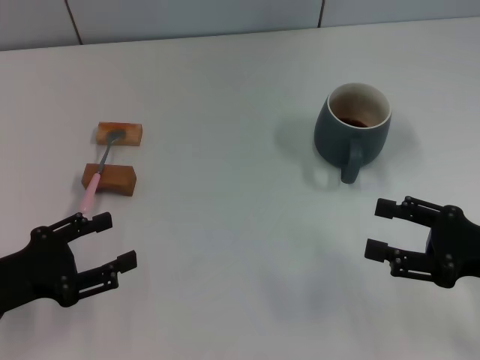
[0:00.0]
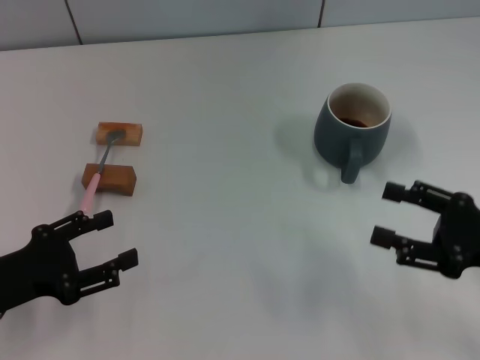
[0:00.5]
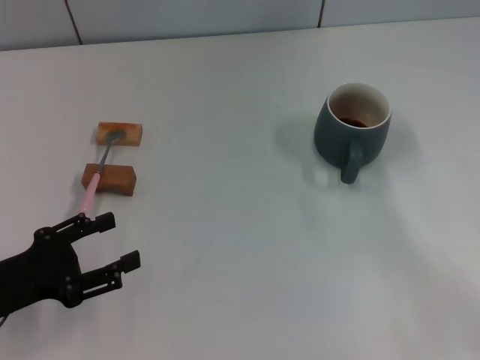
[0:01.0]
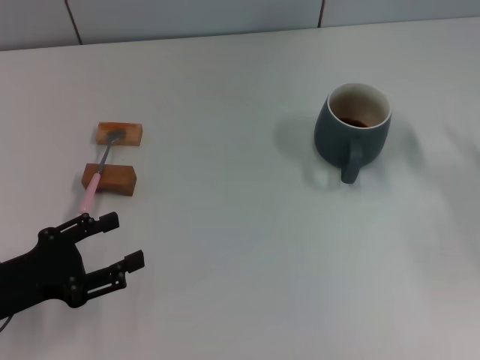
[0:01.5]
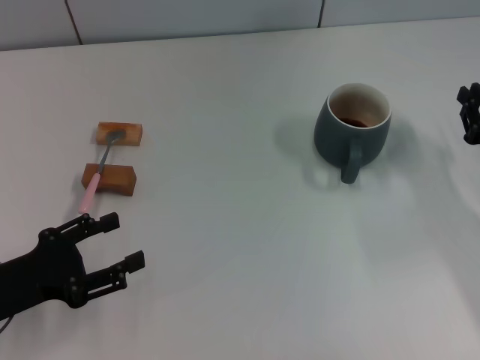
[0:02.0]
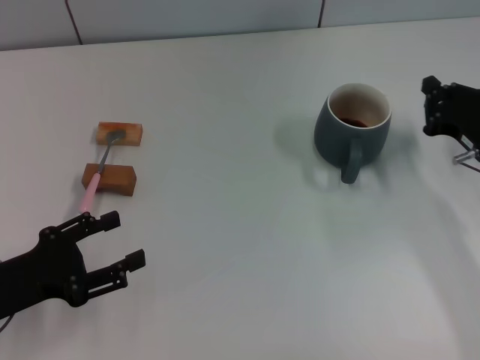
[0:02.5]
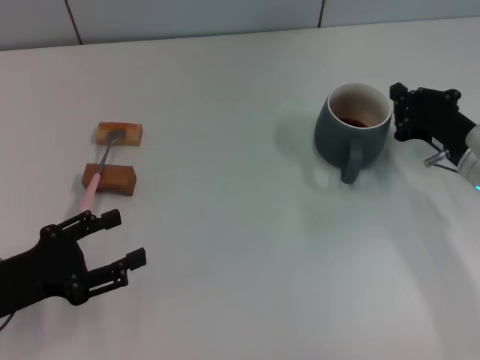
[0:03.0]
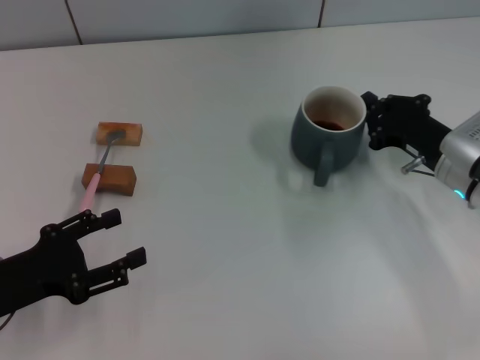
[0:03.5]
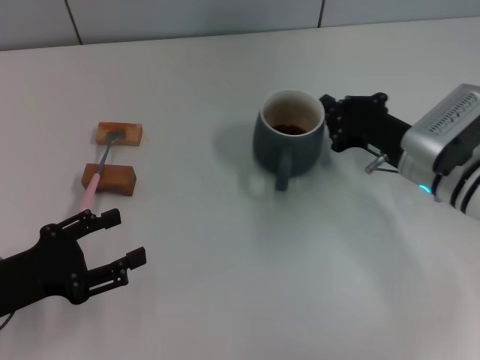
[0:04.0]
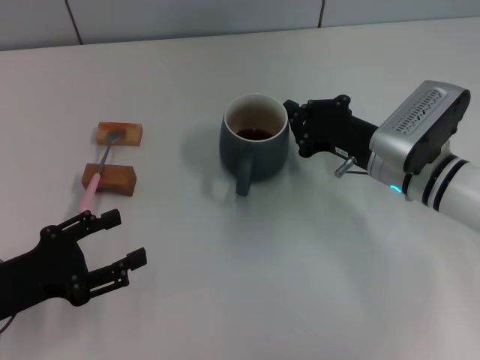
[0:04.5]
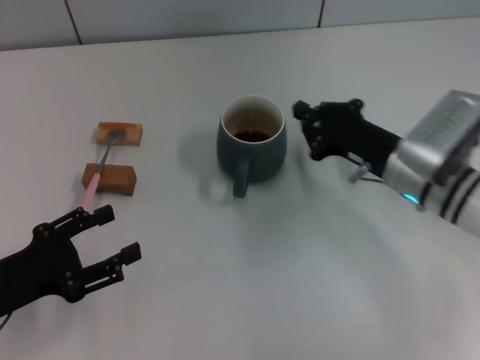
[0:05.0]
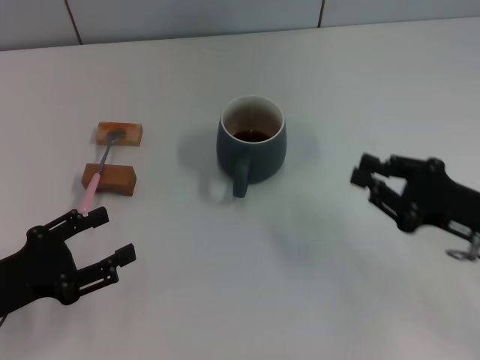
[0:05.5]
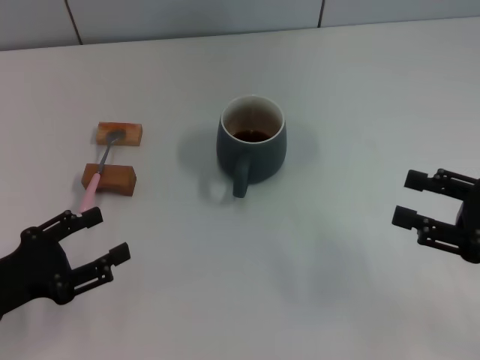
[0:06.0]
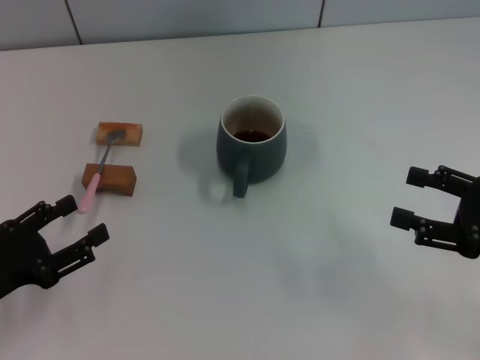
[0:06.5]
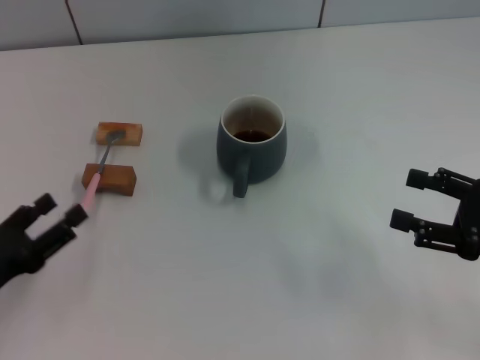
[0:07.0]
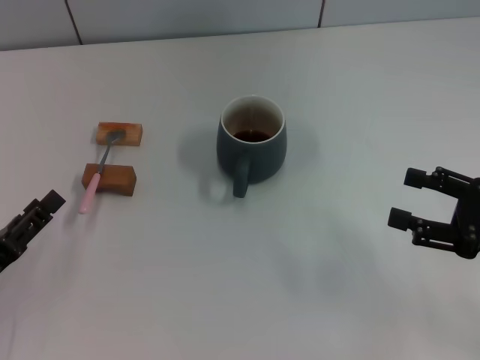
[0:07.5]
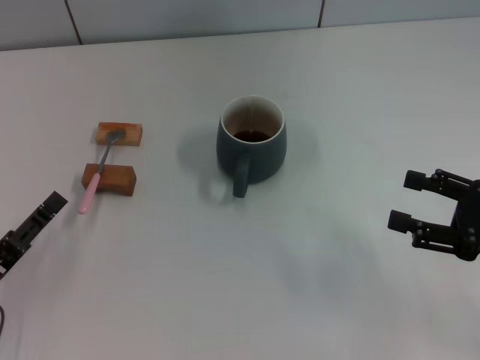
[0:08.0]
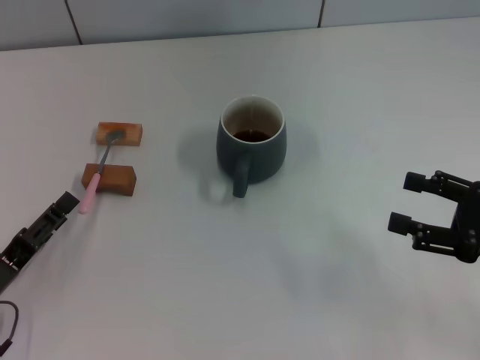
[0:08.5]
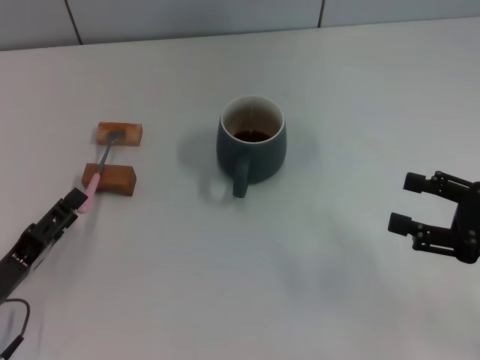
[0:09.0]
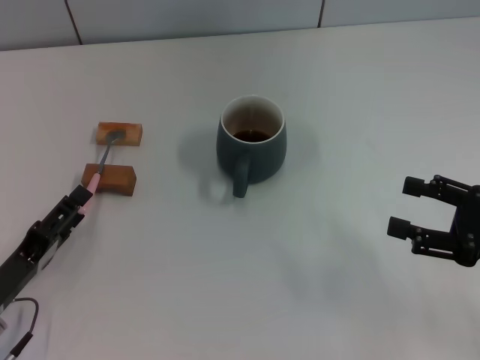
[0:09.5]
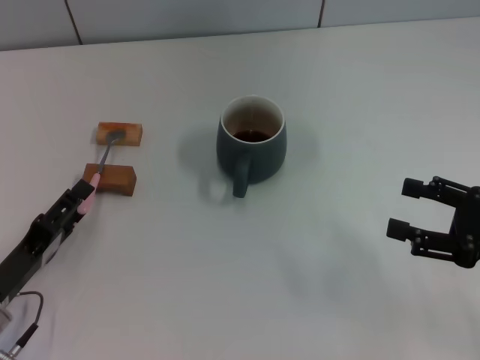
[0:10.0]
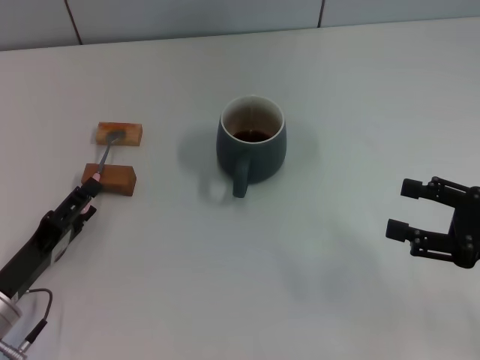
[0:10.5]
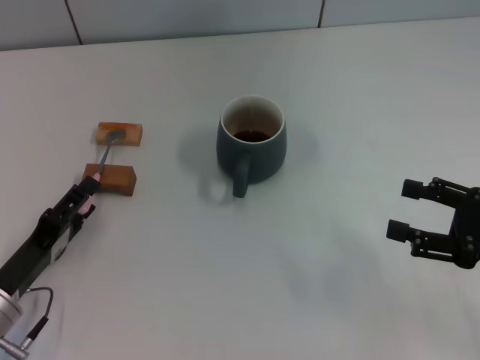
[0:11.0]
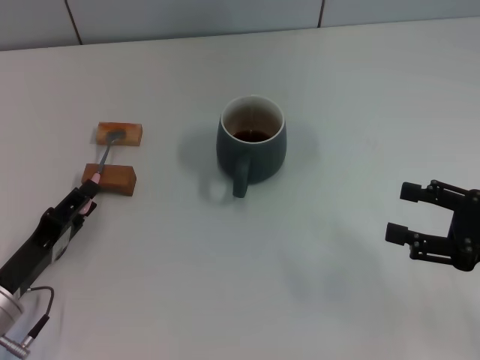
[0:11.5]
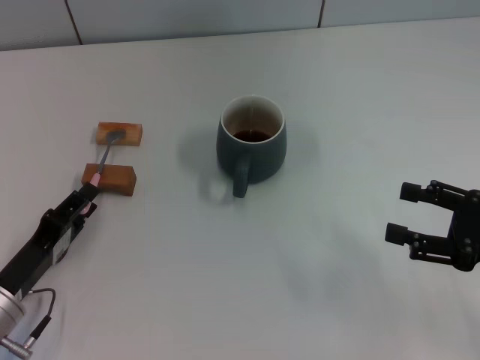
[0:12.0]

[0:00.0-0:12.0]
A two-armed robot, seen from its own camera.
Task of the whole recording: Move the grey cup to the center, lift the pink spoon, stir it three times in the cup, and put the spoon into the cup.
Step, 0:00.0 to 0:04.5: Move the cup with coffee to the center of view with the right gripper.
0:00.0 to 0:02.0: The right gripper travels forward by roughly 10 cm, and closes its fingers.
0:02.0 to 0:04.0: The right gripper goes approximately 10 cm to the left, and closes its fingers.
0:04.0 to 0:06.0: The right gripper heads backward, to the right and upward, covering some 15 cm, and opens up.
0:08.0 to 0:10.0: The grippers stay close to where they were, moving slightly.
0:10.0 to 0:12.0: The left gripper closes.

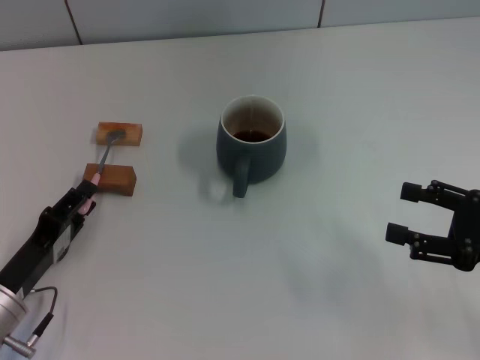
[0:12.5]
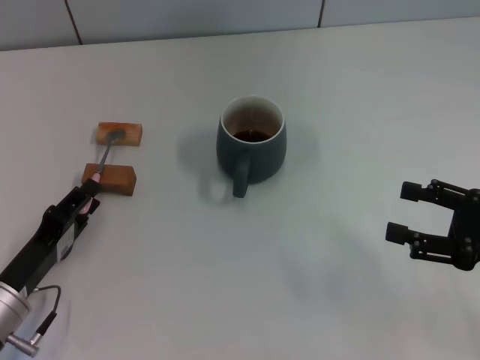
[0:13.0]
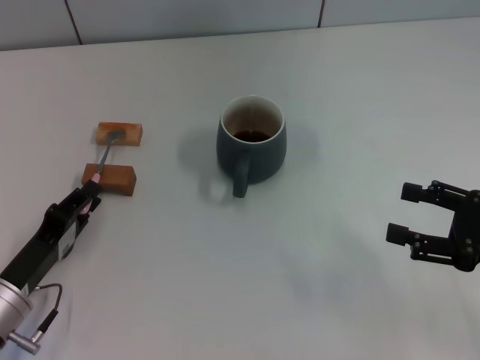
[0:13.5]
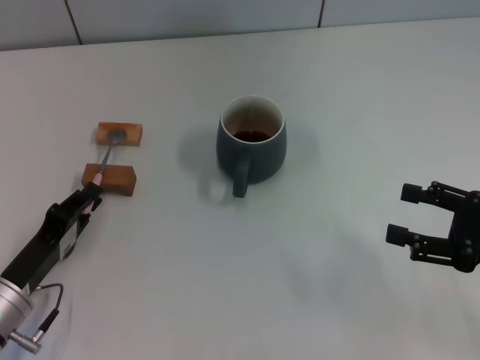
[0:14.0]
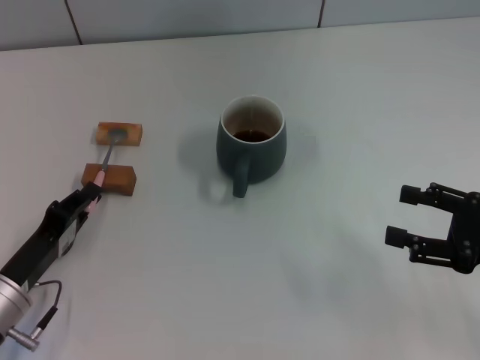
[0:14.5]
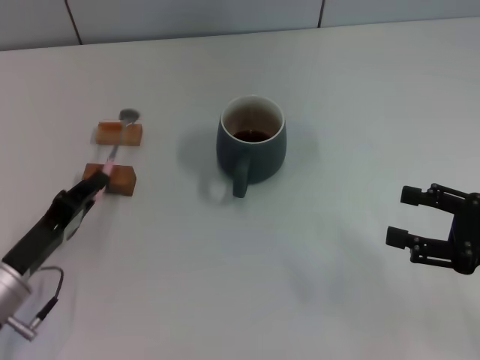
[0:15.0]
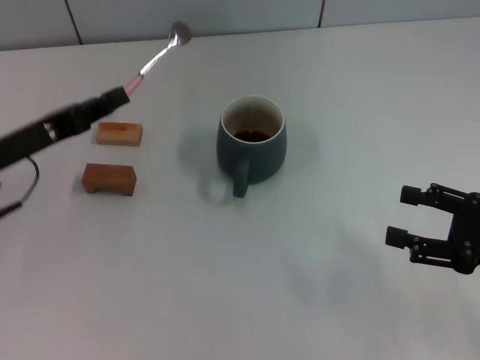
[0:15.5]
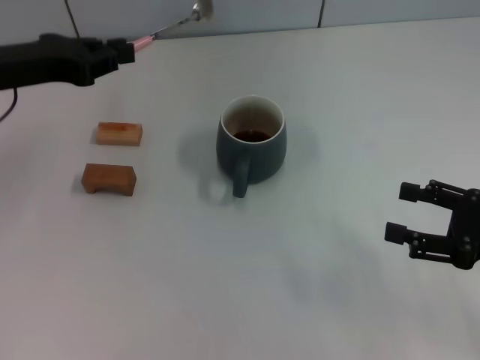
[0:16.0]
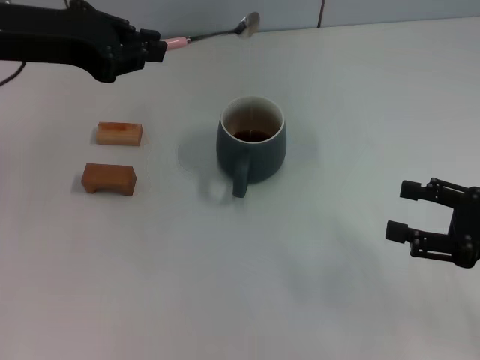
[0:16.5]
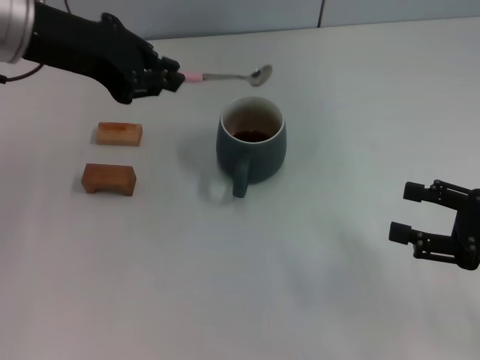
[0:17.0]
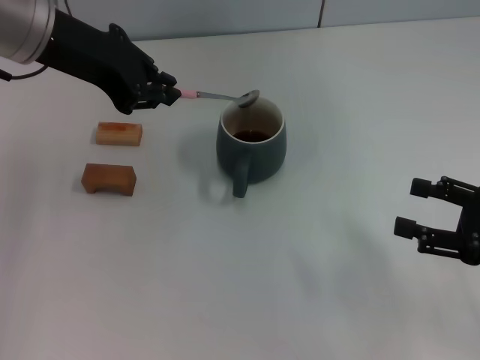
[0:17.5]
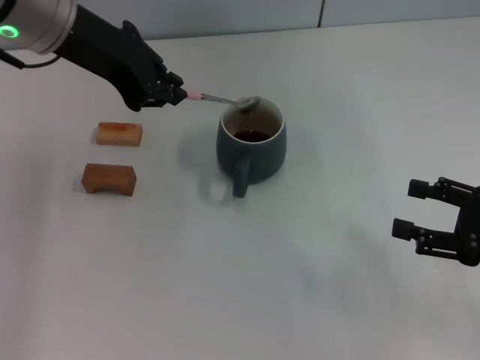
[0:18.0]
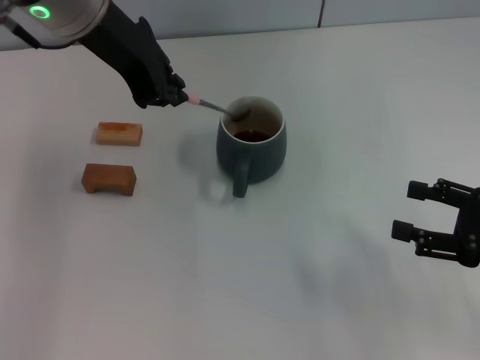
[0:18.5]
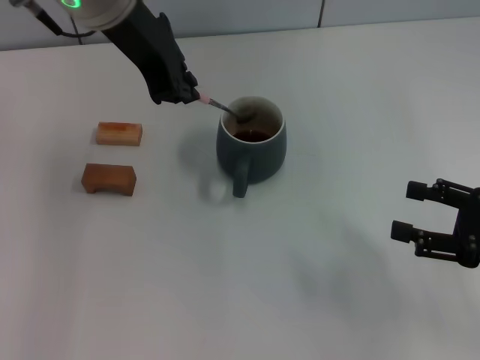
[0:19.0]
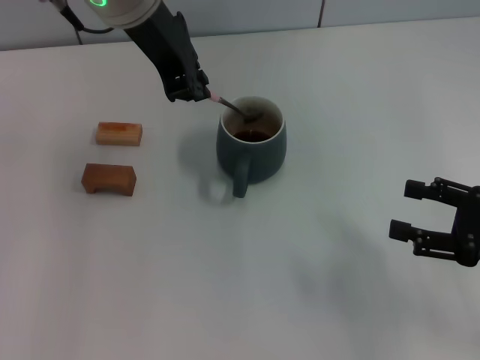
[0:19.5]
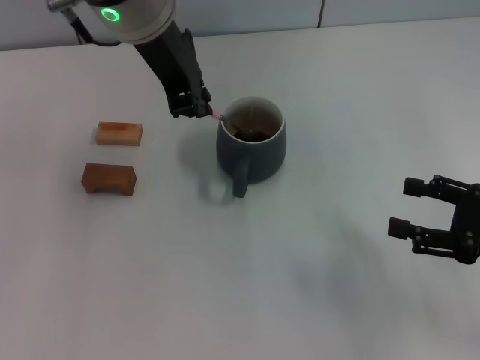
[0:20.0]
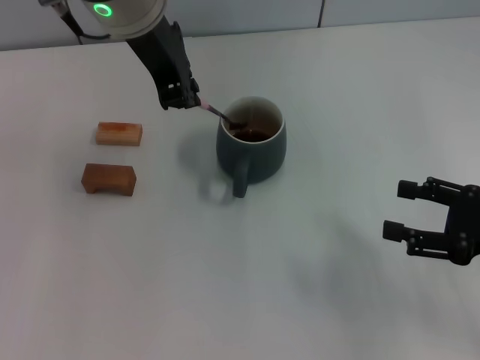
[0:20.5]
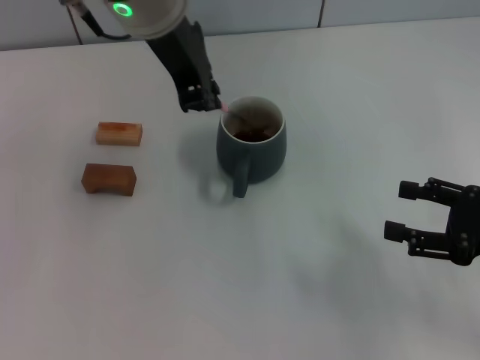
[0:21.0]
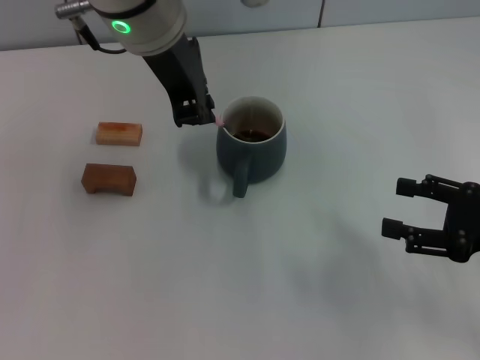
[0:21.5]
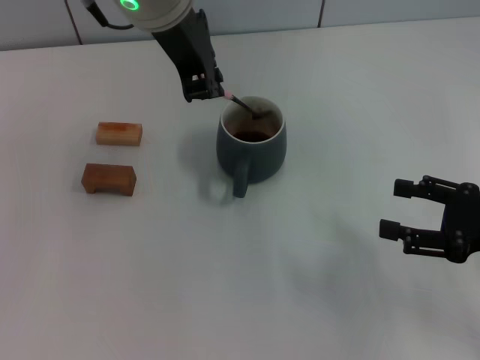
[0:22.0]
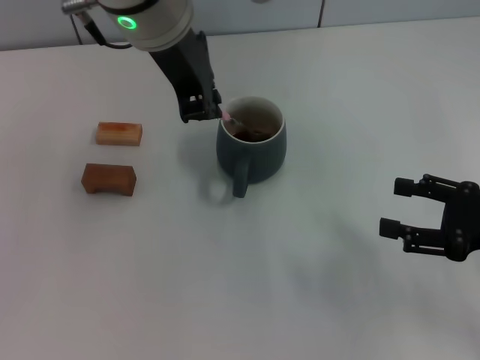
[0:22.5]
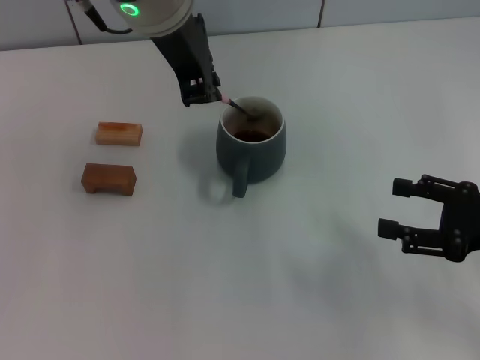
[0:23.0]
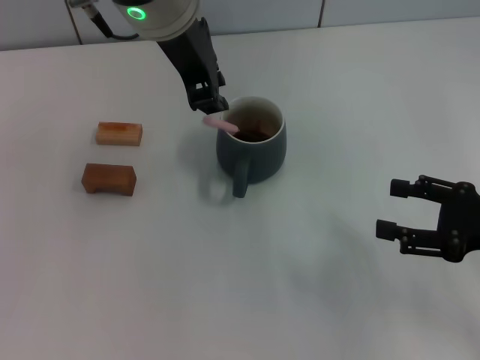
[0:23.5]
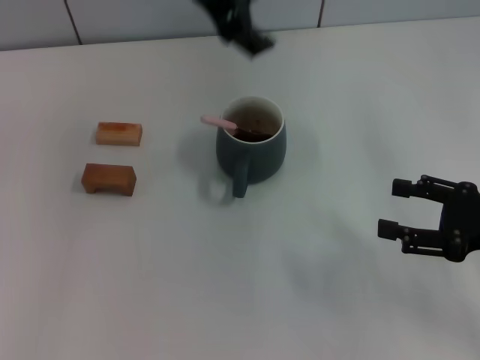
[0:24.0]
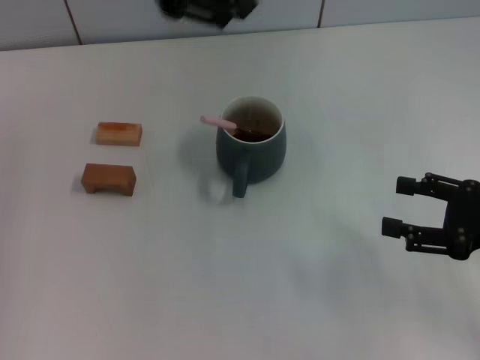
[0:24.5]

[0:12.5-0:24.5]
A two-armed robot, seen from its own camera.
Task of the whole recording: Move the grey cup to the center, lift the pink spoon, stir it three times in the cup, and put the spoon into the cup.
Step, 0:12.5 to 0:14.5: Pick up the spoon with the left gripper.
Step, 0:15.0 to 0:23.5: Stir the coffee in the cup with the left gripper.
0:12.5 to 0:14.5: Both grippers stay about where they are.
0:14.5 to 0:16.5: The left gripper shifts approximately 30 cm upward and forward.
0:16.5 to 0:18.5: The left gripper goes some 10 cm to the right.
0:18.5 to 0:20.5: The left gripper moves to the right, approximately 5 cm.
0:20.5 to 0:22.5: There are only small adjustments of the grippers.
0:22.5 to 0:24.5: The left gripper moves to the left, some 10 cm, and opens.

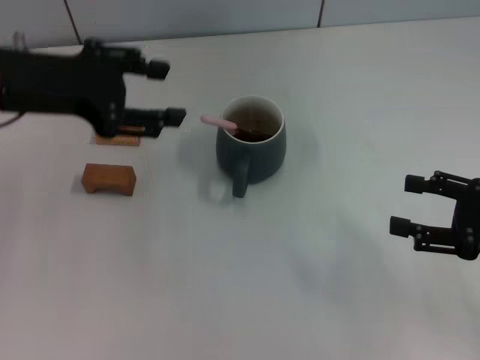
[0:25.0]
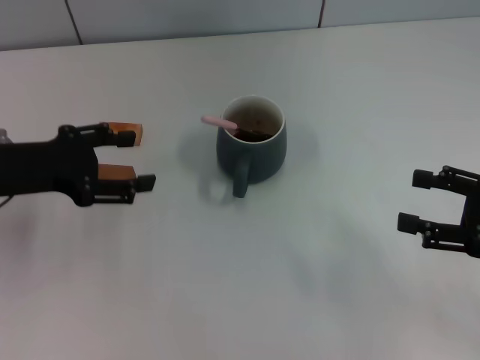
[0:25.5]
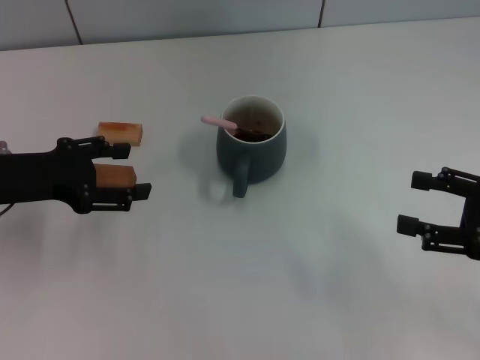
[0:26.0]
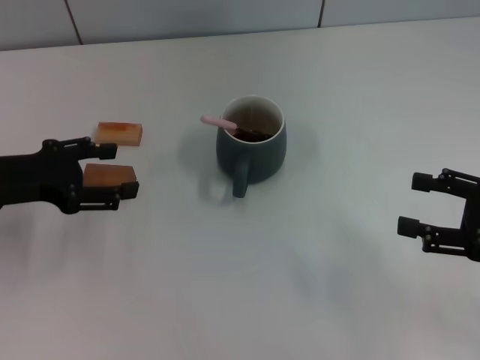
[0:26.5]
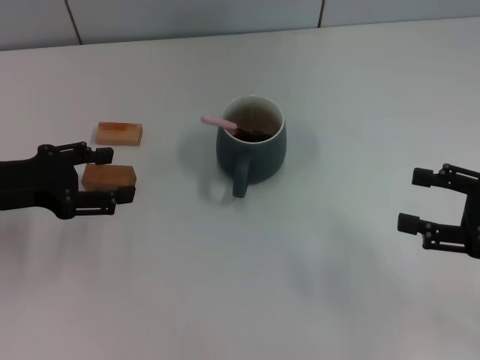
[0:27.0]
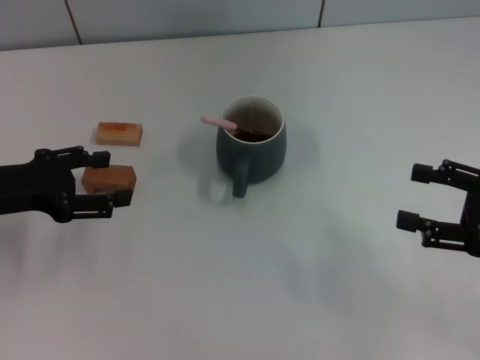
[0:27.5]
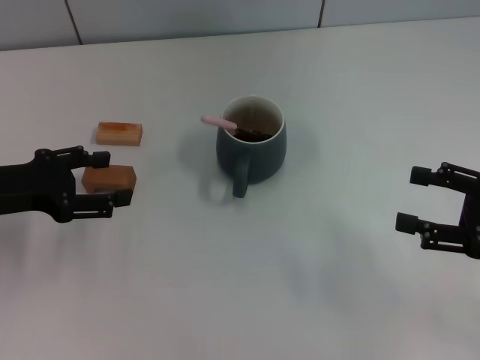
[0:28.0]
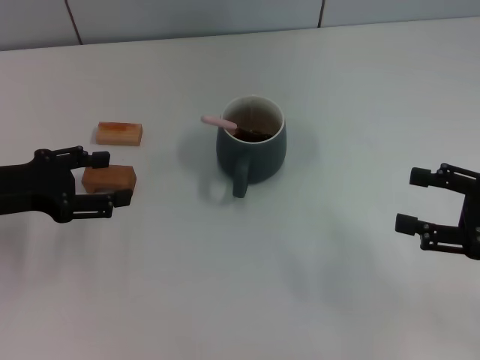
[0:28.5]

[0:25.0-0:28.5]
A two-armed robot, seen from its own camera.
Task of the whole recording: Move the grey cup to the center, lift the pink spoon, stir it three times in the cup, and put the spoon into the cup.
0:25.0 to 0:27.0: The left gripper shifts about 15 cm downward and to the left.
0:27.0 to 0:28.5: Both grippers stay about where they are.
